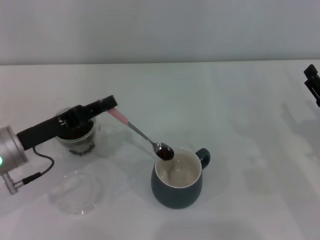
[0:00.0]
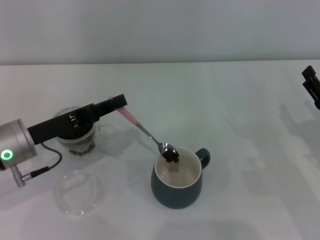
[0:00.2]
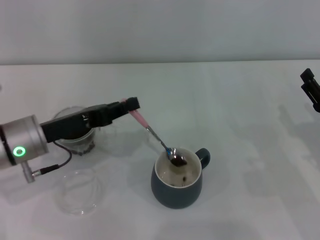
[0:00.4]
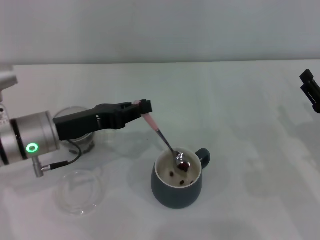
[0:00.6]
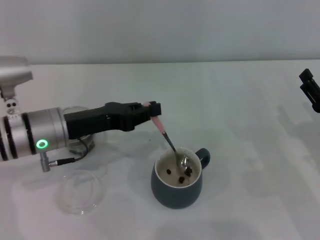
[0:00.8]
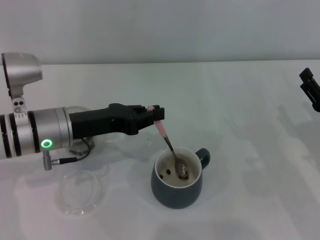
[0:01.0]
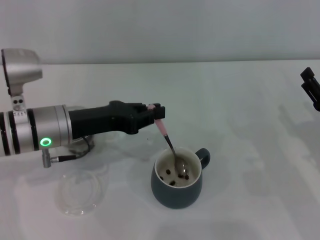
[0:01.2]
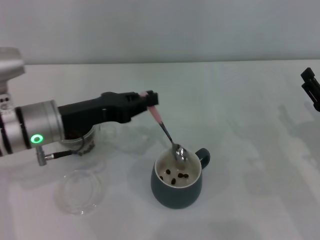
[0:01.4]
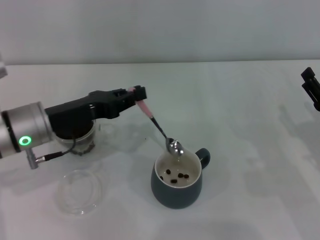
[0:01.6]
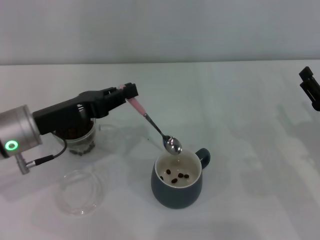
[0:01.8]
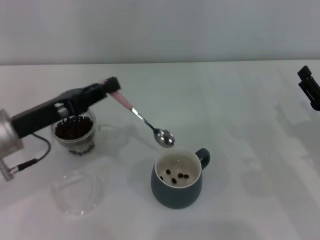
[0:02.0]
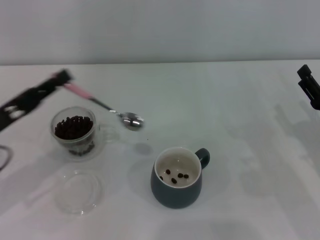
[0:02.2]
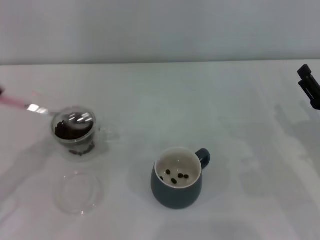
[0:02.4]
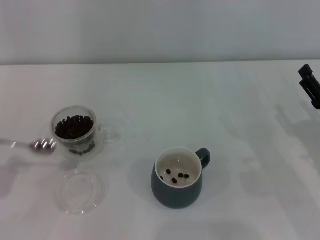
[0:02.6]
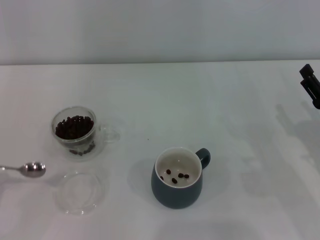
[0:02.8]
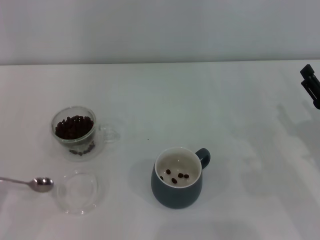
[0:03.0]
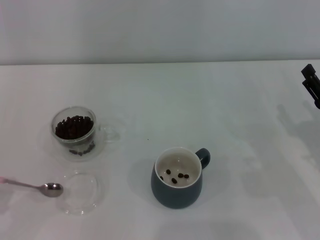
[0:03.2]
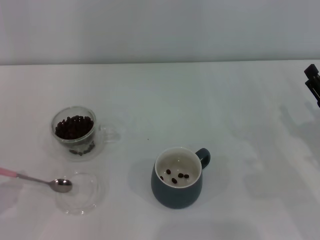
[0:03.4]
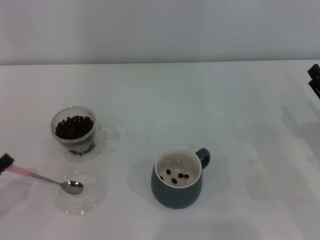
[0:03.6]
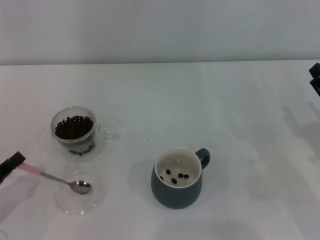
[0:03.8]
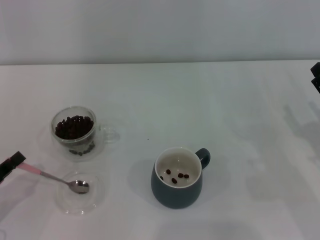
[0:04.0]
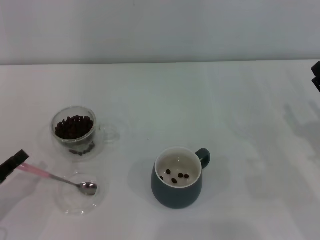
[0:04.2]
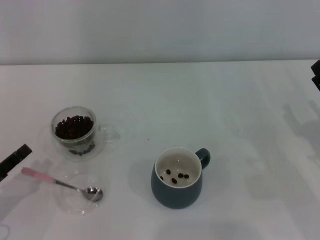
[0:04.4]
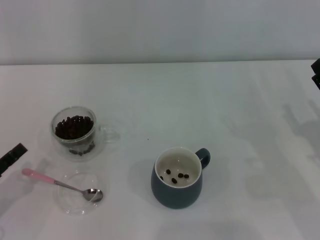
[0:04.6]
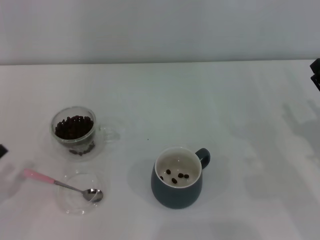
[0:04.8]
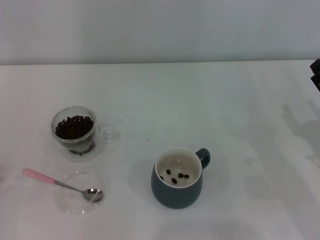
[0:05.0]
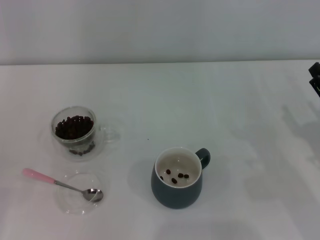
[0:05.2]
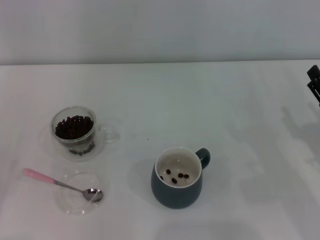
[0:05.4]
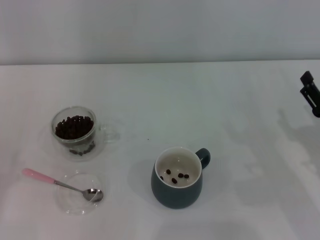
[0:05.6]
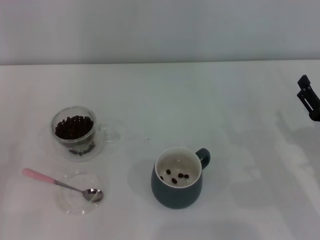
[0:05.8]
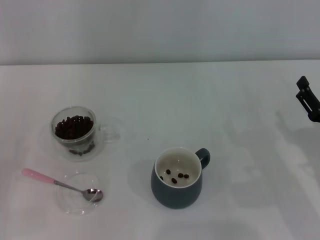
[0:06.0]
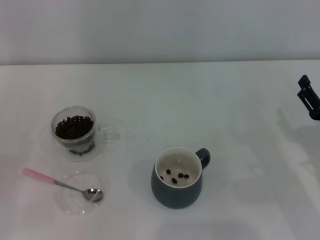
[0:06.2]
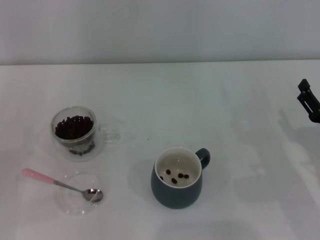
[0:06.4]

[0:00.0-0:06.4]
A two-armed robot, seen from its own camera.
Task of the whole recording: Use a pink spoon to take out the coffee beans from the glass and pour them into the gray cup.
0:00.0 to 0:01.6: The left gripper ends up about 5 cm from where it was.
0:01.6 to 0:03.2: The left gripper moves backward, to the left and downward, roughly 25 cm.
0:03.2 to 0:04.8: The left gripper opens up.
